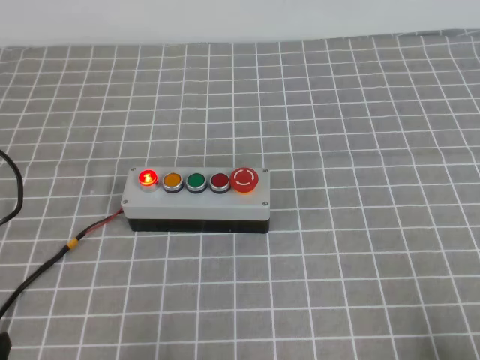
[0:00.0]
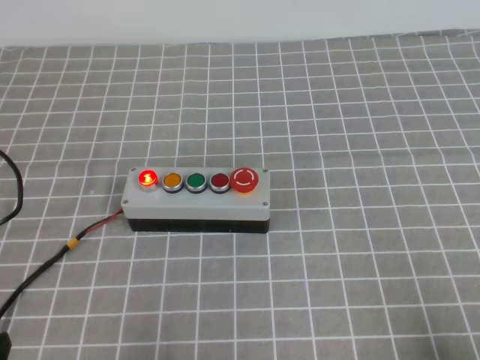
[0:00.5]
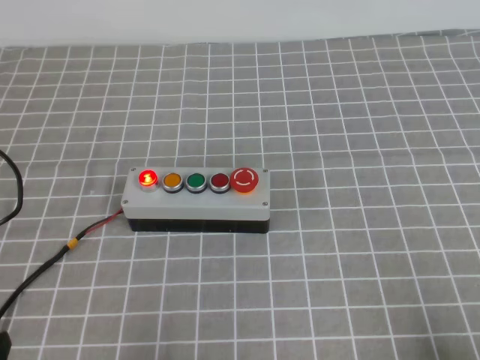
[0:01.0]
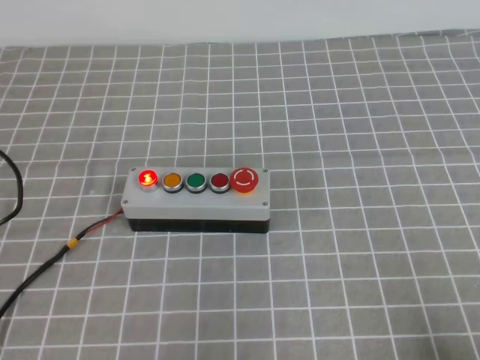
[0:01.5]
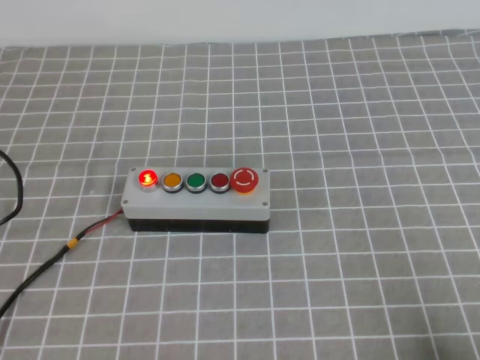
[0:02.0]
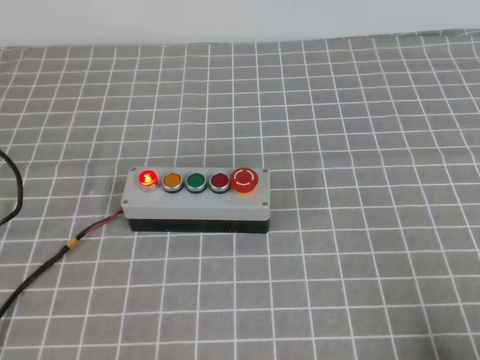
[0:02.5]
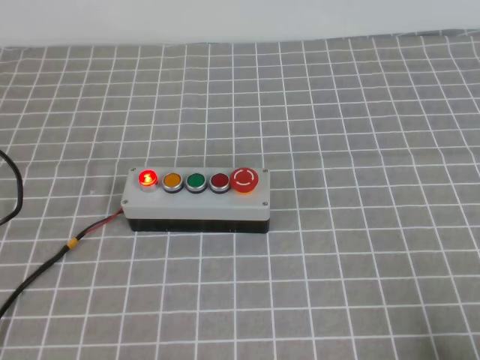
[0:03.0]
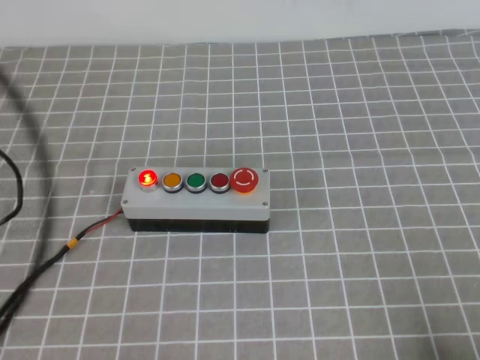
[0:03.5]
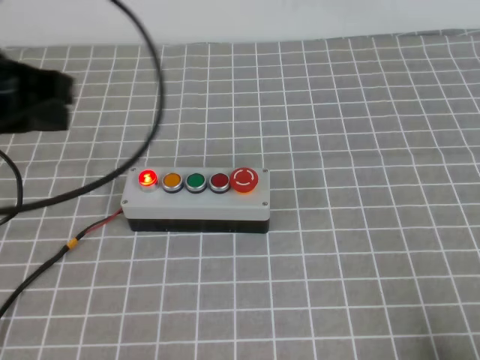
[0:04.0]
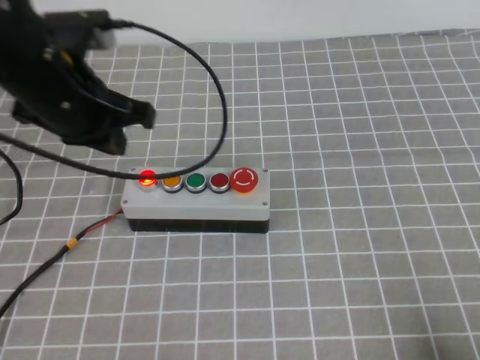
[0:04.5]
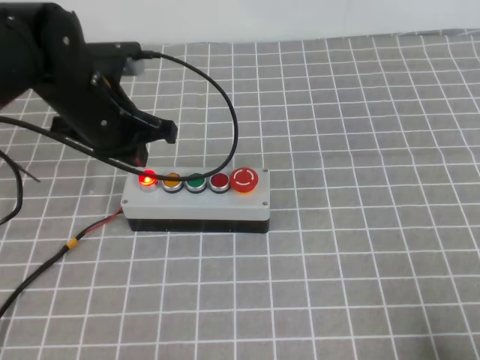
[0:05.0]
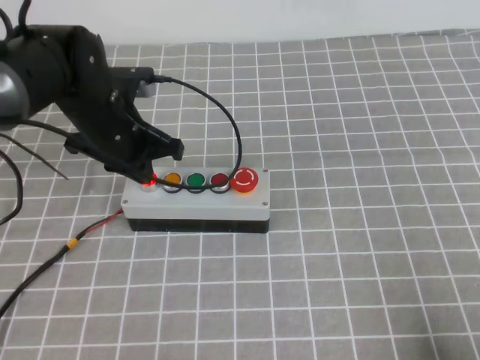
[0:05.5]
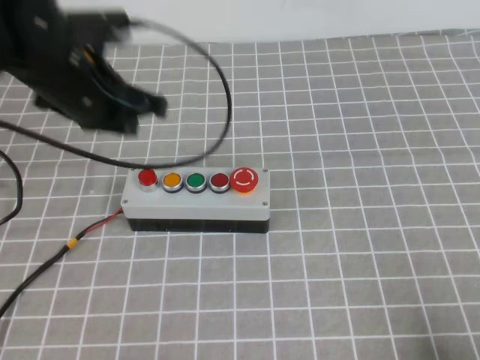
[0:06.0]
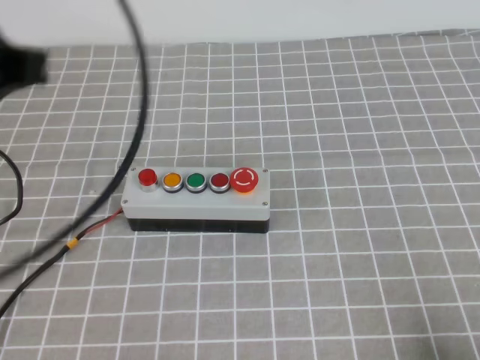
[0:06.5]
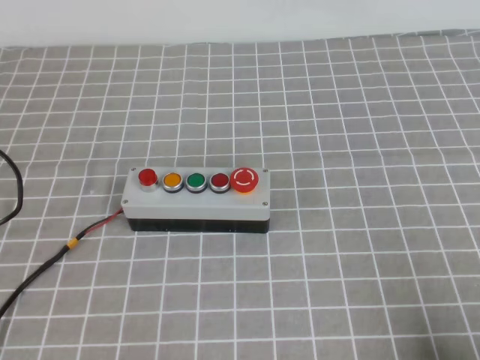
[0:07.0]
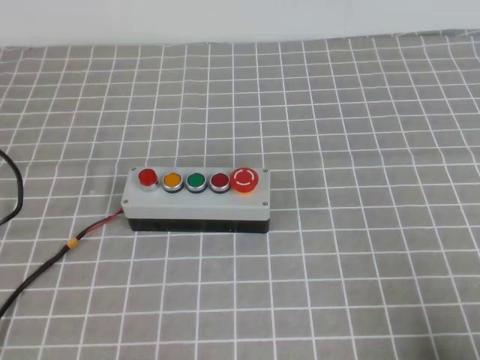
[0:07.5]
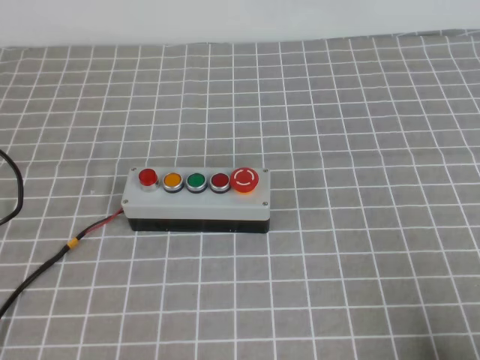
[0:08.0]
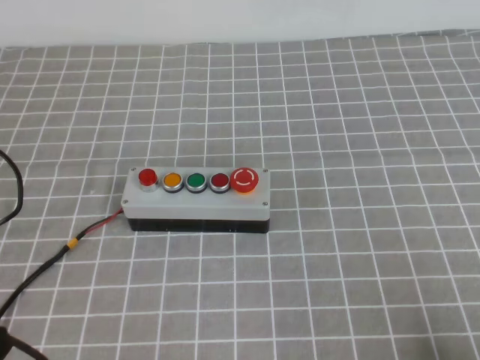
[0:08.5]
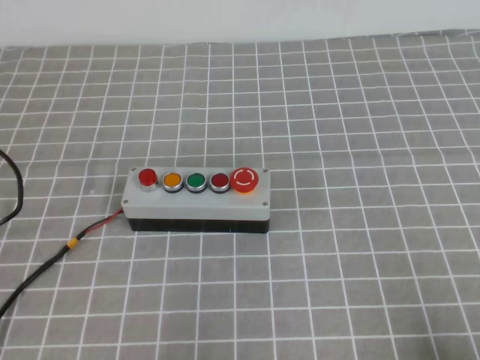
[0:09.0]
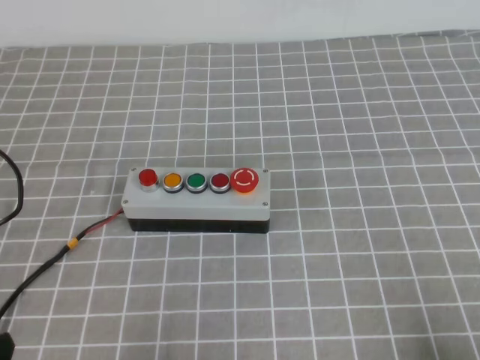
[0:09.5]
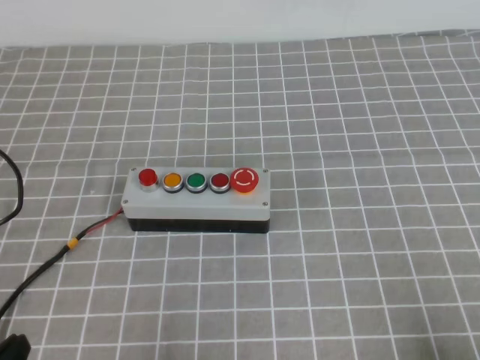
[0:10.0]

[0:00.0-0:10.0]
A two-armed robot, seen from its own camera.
Task of the whole recording: press the button switch on the grey tablecloth with the left gripper to turn off the button.
Step, 0:00.0 to 0:10.0: Press the button to turn off.
0:02.0 to 0:04.0: The left gripper goes some 25 cm forward and upward.
0:04.0 to 0:06.0: The left gripper shifts roughly 15 cm forward, downward and to the right.
0:06.0 to 0:08.0: The left gripper goes roughly 30 cm backward.
